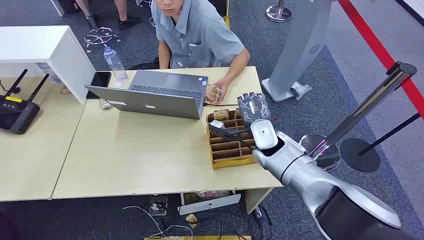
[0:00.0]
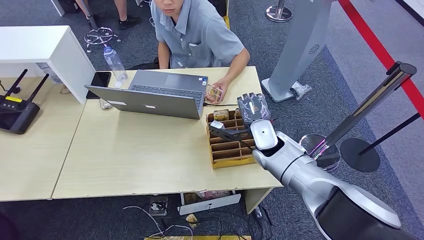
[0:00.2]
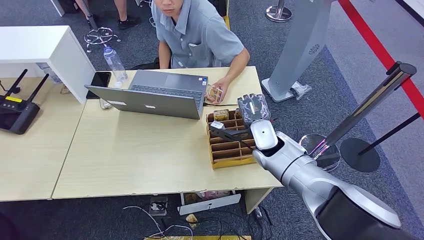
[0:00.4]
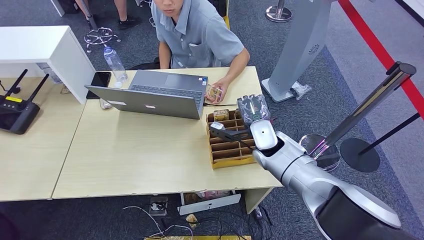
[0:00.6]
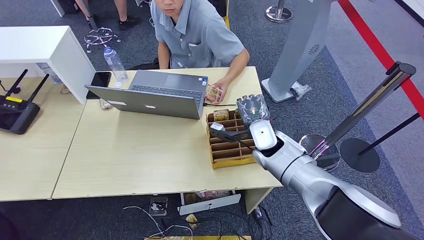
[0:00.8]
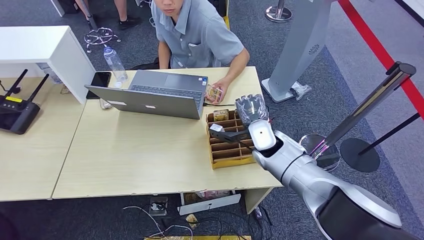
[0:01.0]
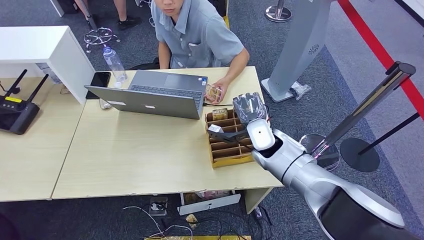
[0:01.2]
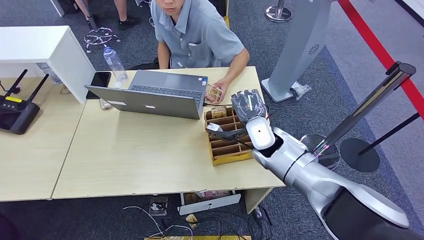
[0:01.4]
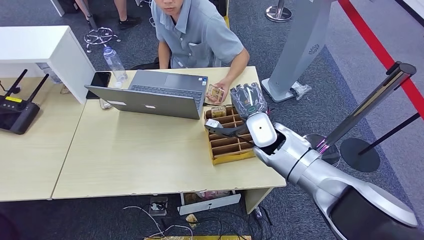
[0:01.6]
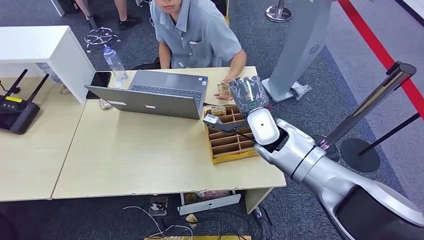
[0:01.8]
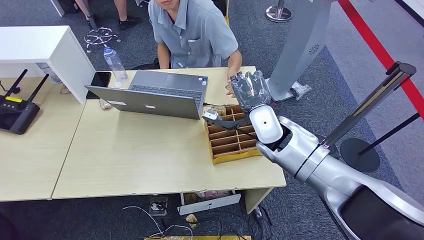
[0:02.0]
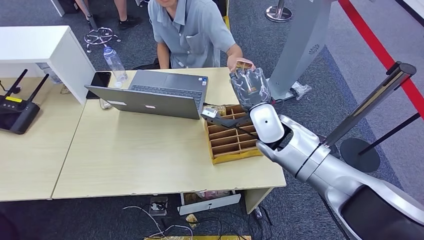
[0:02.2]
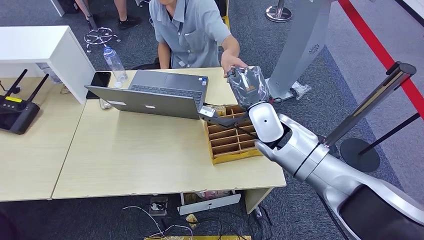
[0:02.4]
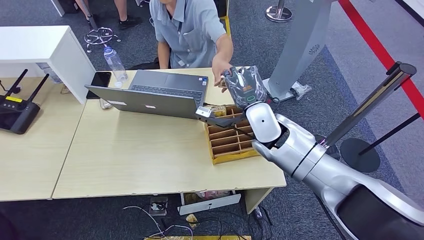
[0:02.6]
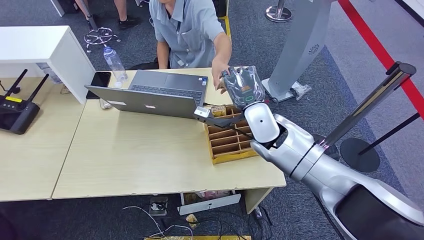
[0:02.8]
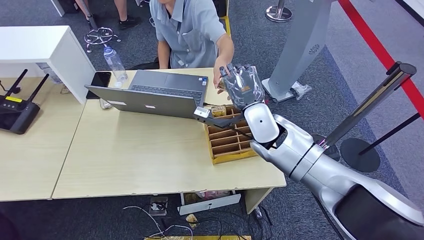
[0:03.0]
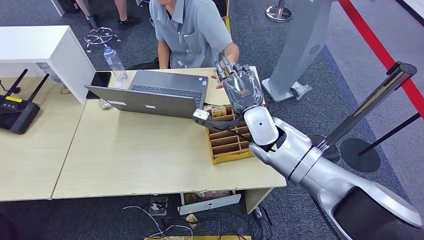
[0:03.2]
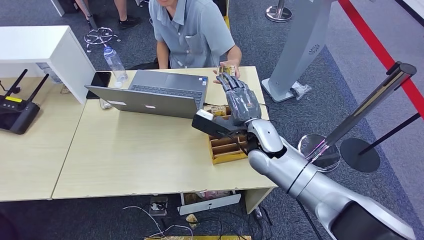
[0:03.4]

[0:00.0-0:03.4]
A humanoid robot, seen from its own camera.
Step, 0:00.0 to 0:01.6: Pick up the key card from the card box.
Step, 0:02.4 to 0:03.4: Hand the key card to the target.
